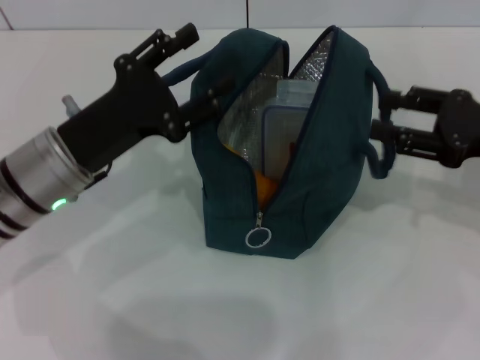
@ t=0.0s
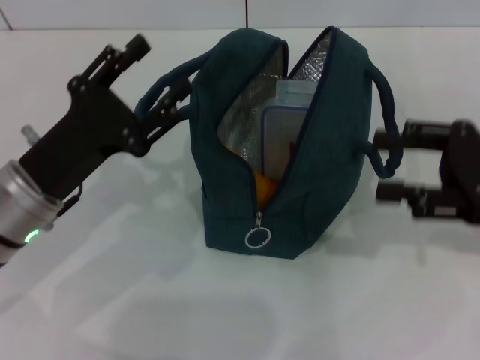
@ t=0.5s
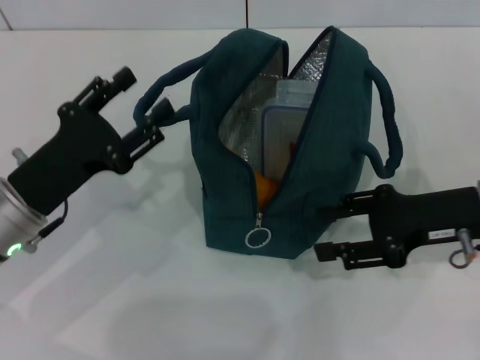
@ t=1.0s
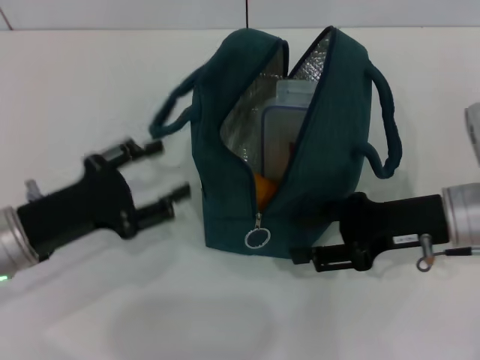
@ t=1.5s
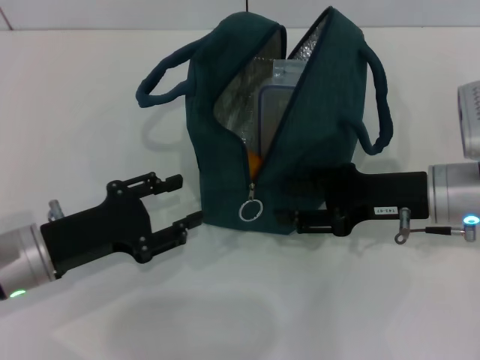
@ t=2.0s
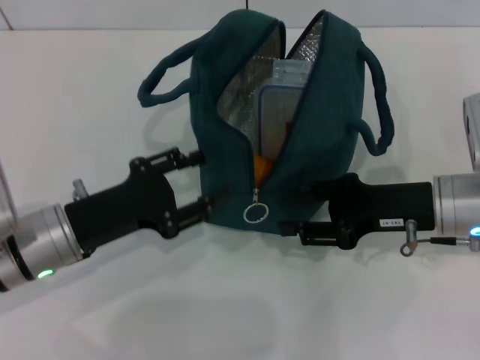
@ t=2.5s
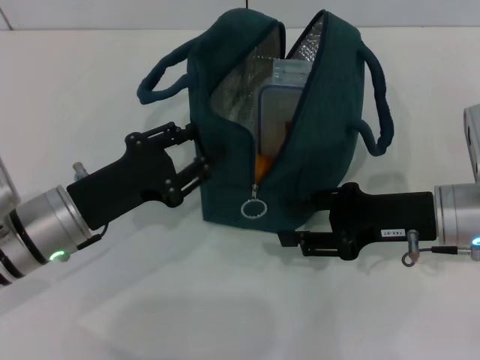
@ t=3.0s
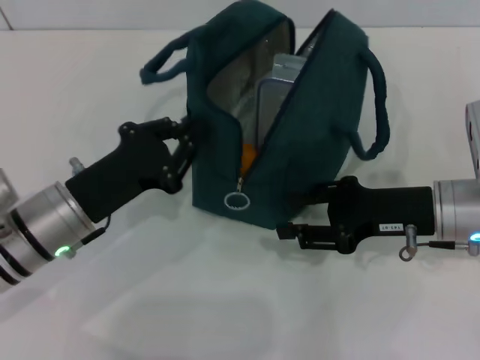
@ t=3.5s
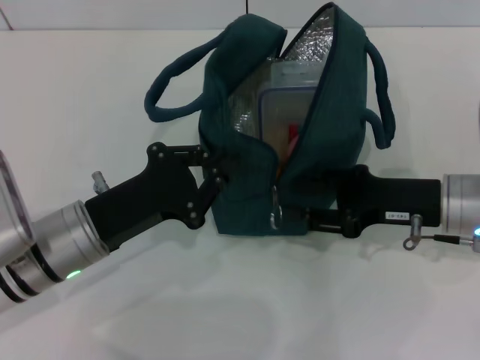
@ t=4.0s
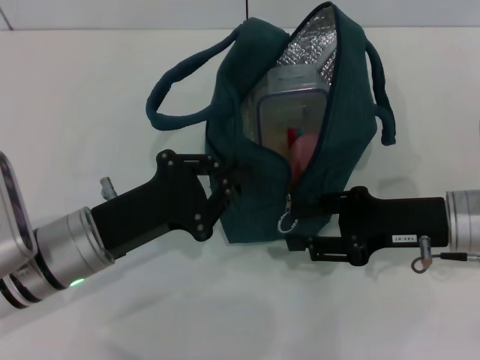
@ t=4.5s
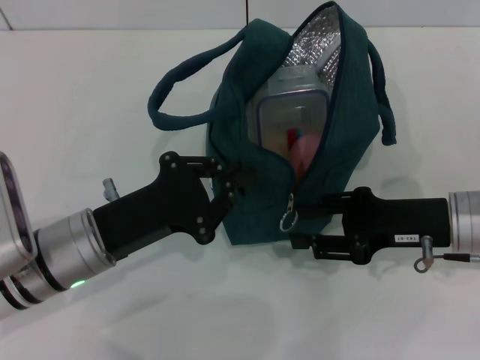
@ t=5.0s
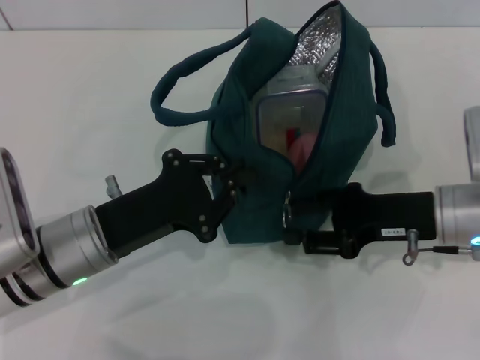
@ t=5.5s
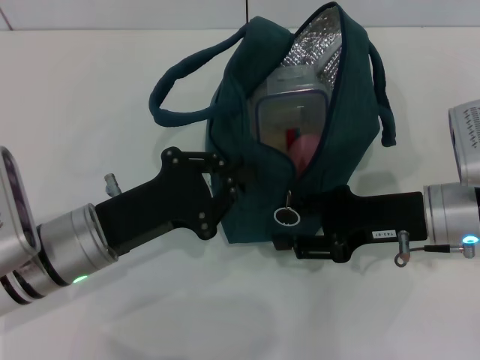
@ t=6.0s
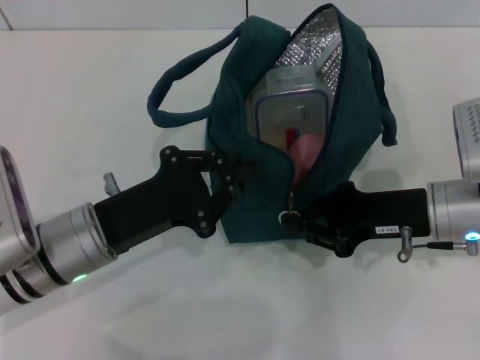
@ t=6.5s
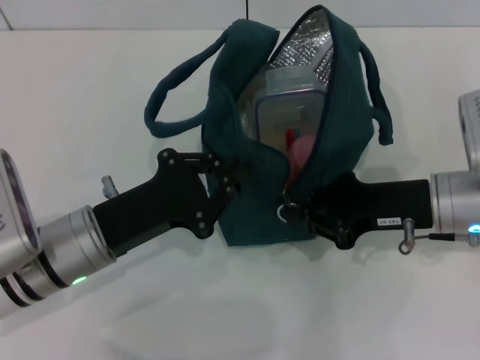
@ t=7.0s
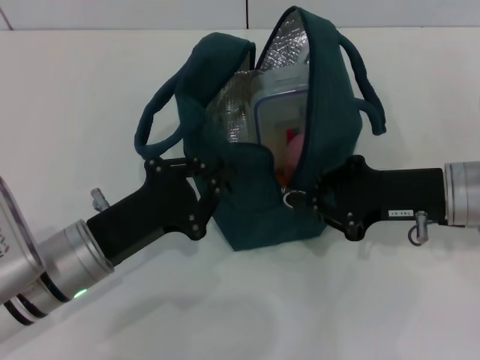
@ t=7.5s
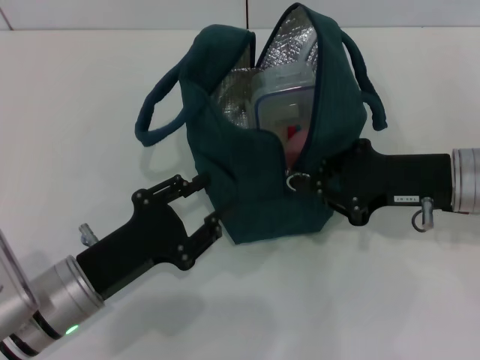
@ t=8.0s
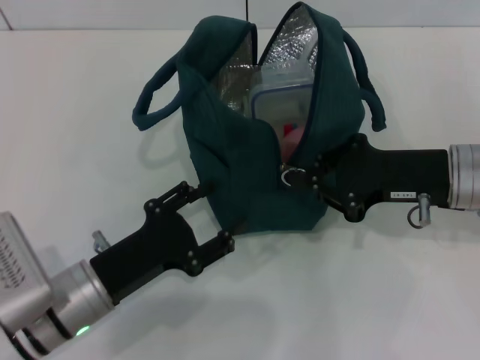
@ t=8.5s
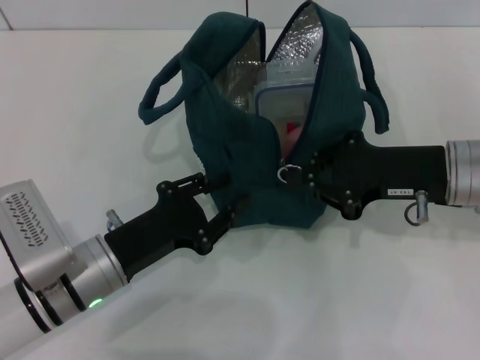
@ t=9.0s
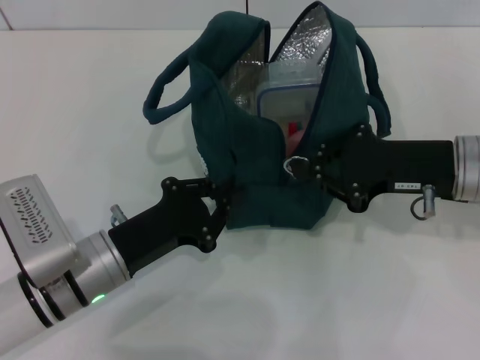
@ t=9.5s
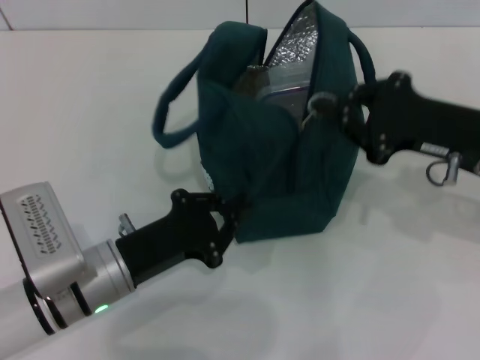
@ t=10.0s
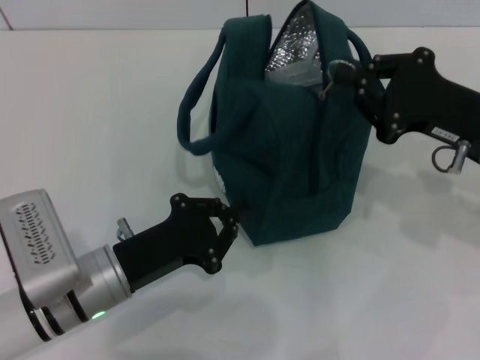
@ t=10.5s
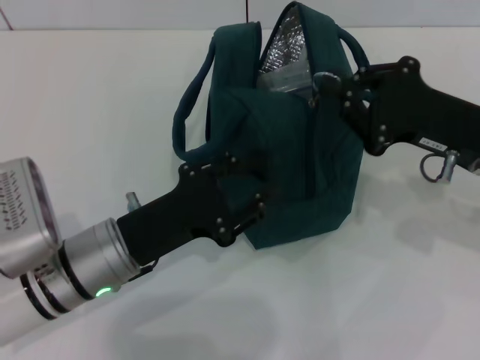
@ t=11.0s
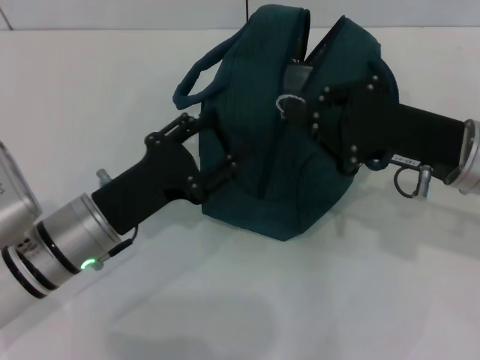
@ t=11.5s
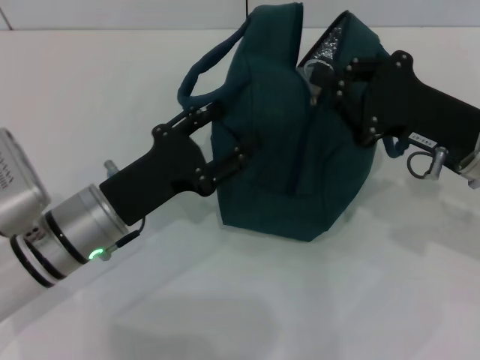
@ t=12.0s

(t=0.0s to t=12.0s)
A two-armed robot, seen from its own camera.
t=0.0s - t=2.0s: The right gripper is displaced to the left and downward by about 10 cm. The left gripper changes place by approximately 10 cm.
t=2.0s - t=4.0s: The left gripper heads to the right, covering some 5 cm, and closes its fingers.
t=4.0s - t=6.0s: There are only small adjustments of the grippers.
t=6.0s - t=8.0s: The right gripper closes its fingers; the left gripper shifts by some 5 cm.
t=8.0s - t=10.0s: The left gripper opens and closes again.
t=10.0s - t=12.0s: The left gripper opens.

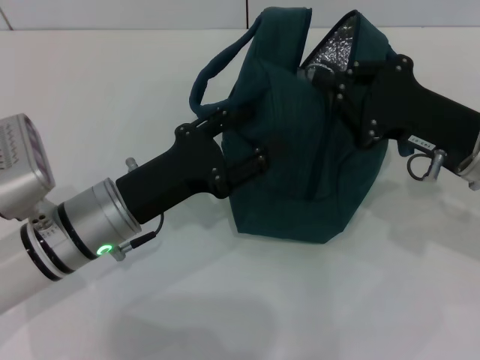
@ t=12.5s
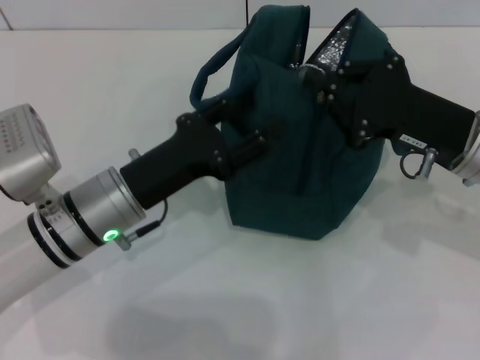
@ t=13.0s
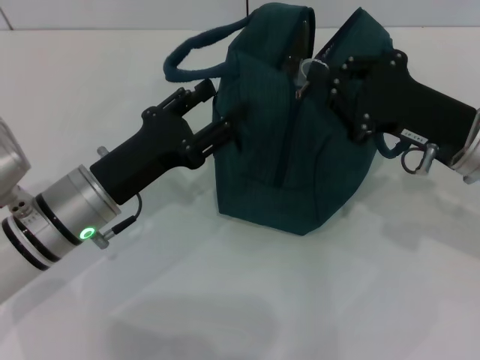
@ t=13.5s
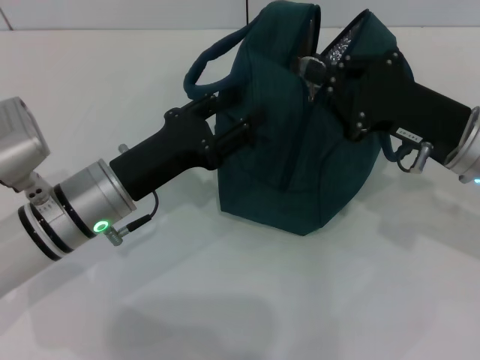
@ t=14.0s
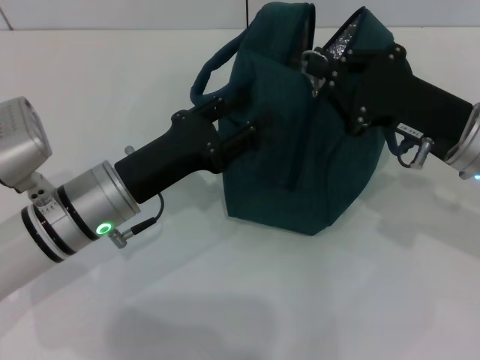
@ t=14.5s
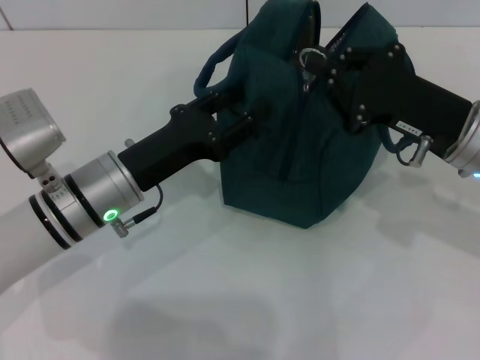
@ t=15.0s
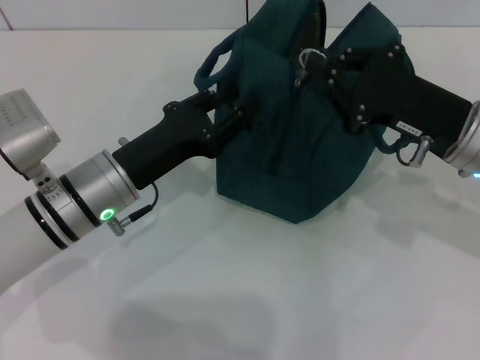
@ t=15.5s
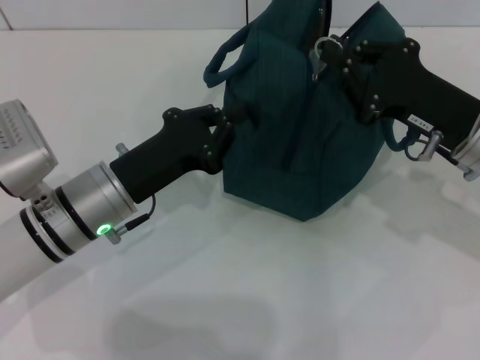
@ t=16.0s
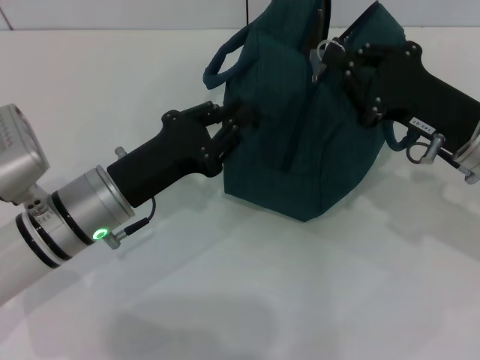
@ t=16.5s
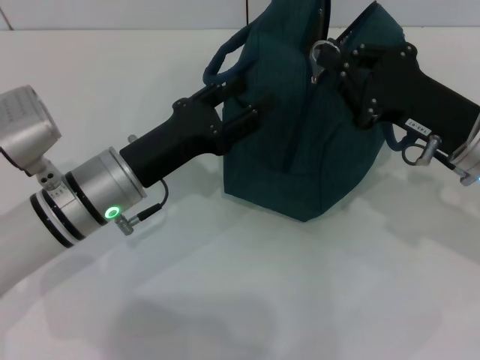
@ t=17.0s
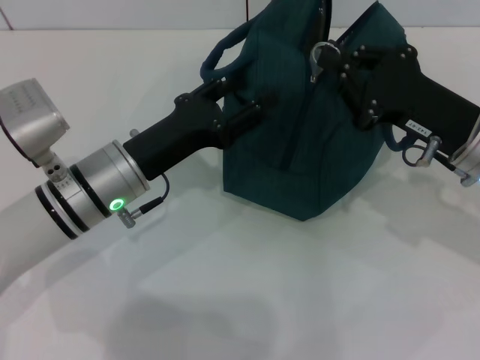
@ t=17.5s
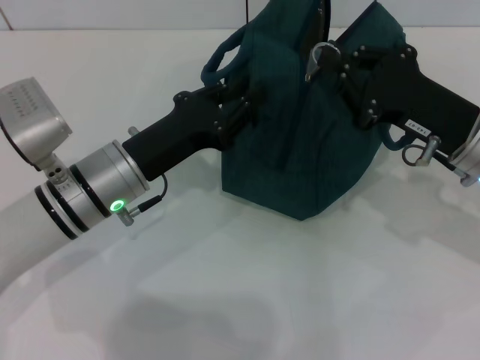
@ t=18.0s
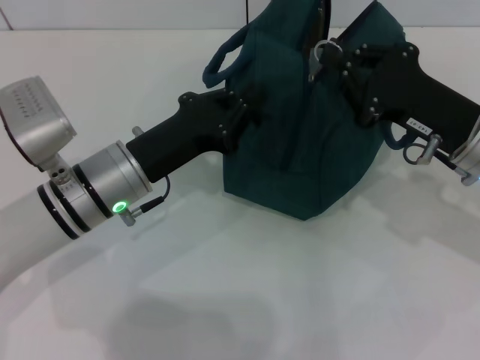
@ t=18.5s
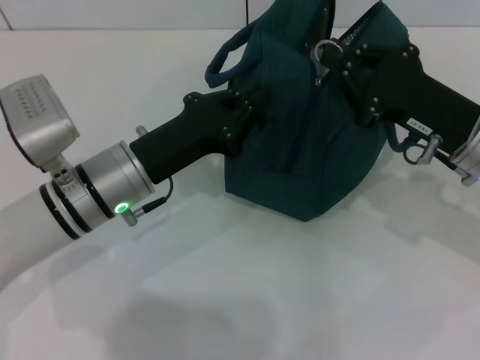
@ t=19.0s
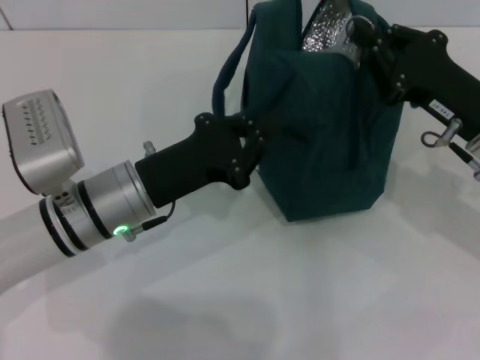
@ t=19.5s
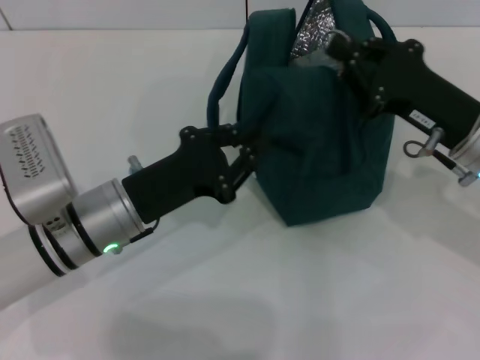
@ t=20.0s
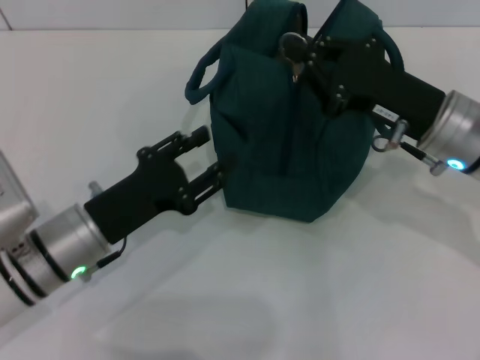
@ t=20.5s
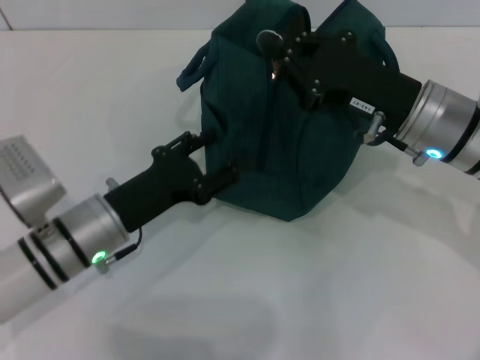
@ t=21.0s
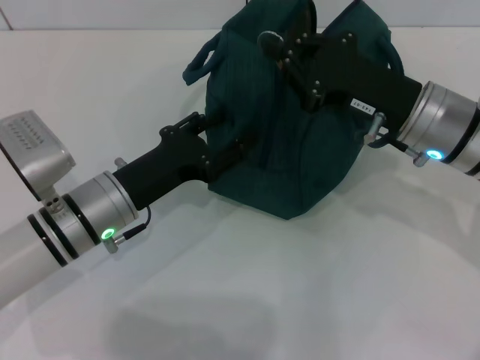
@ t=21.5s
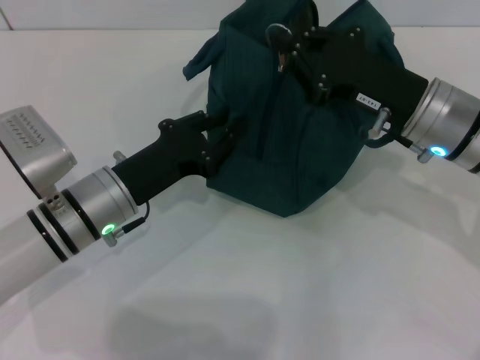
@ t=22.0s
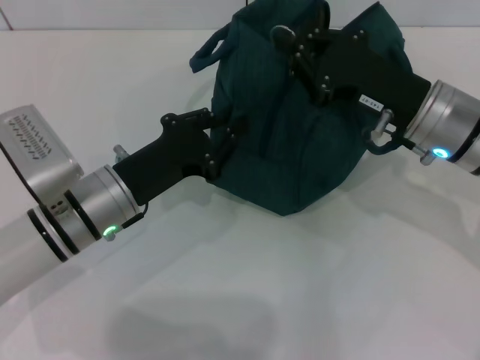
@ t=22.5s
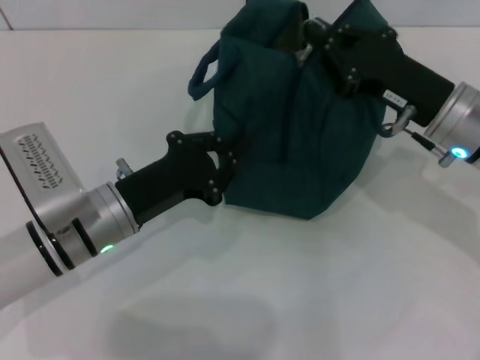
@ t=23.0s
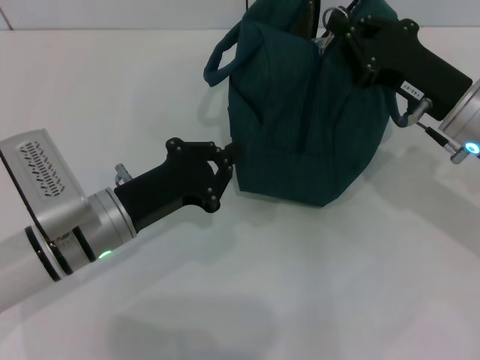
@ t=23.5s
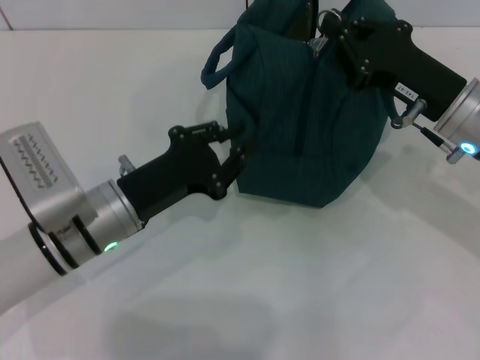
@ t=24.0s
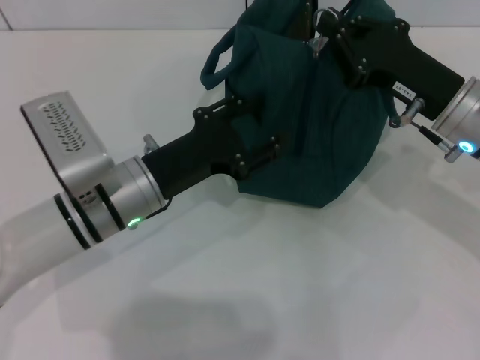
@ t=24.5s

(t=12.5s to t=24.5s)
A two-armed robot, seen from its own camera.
t=12.5s - t=14.5s: The grippers move only a little.
t=14.5s - t=16.5s: The left gripper closes.
t=16.5s - t=18.5s: The left gripper opens, then closes again.
t=18.5s - t=20.5s: The left gripper moves about 5 cm, and opens up.
t=20.5s - t=22.5s: The left gripper closes up.
t=22.5s - t=24.5s: The grippers make only small movements.

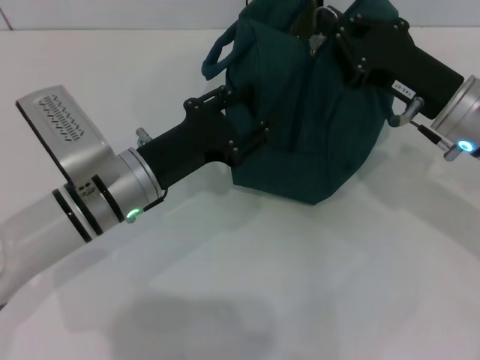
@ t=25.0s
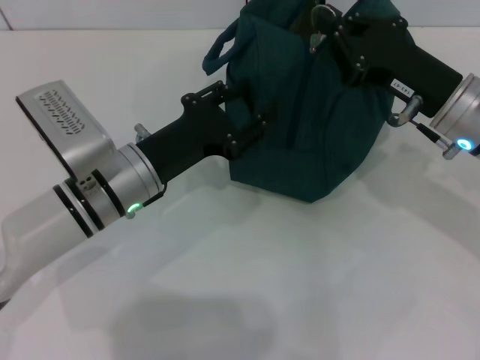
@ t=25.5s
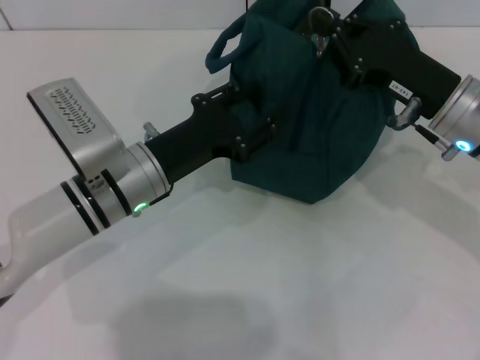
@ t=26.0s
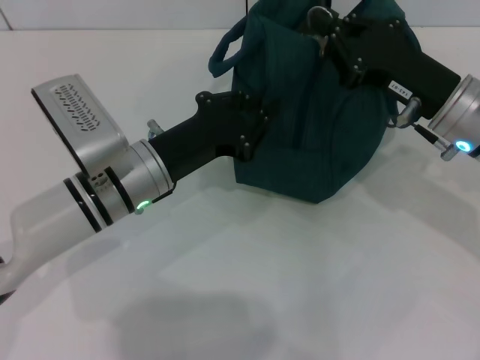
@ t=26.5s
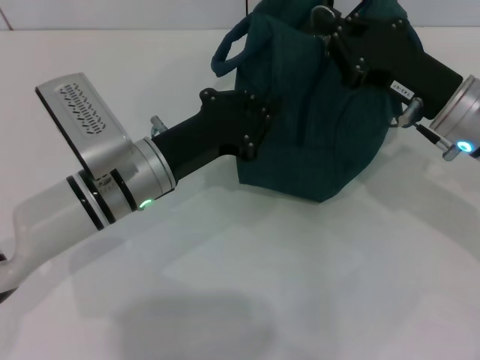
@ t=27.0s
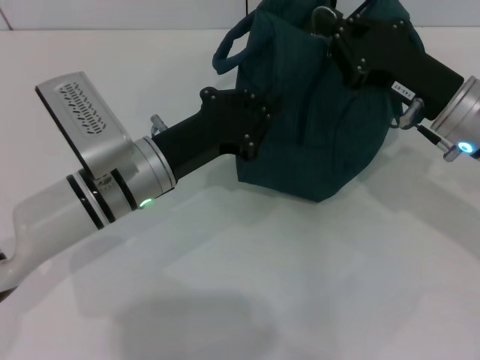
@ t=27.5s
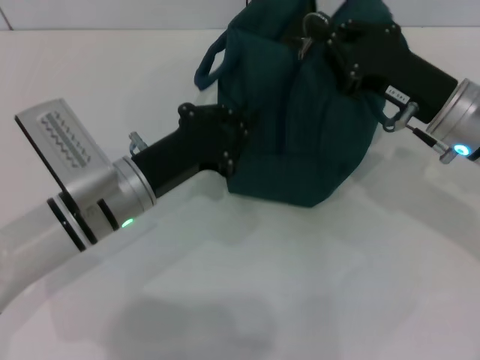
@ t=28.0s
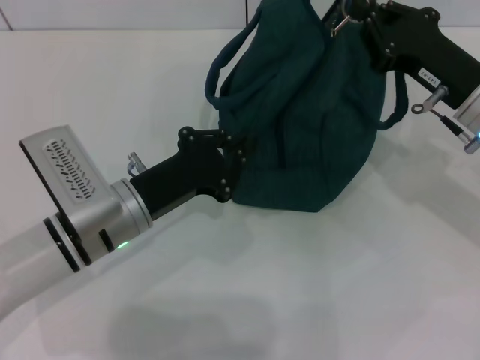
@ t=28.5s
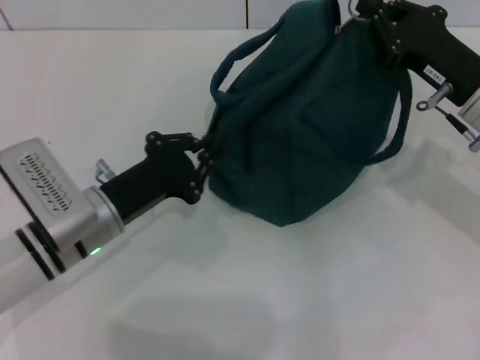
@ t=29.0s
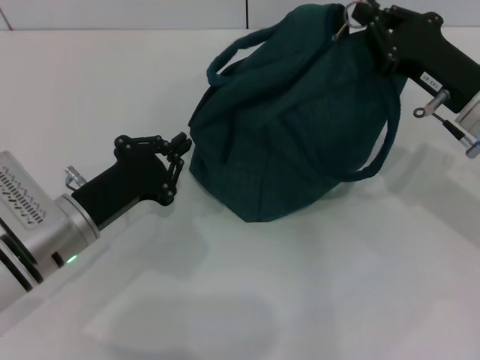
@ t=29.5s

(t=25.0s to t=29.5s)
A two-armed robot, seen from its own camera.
t=25.0s - t=27.0s: The left gripper closes.
t=27.0s - t=29.5s: The left gripper travels to the left by roughly 5 cm.
